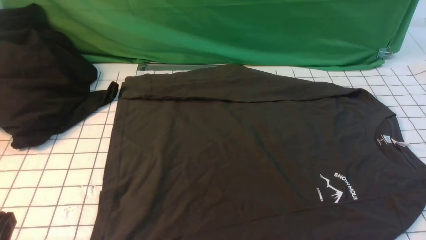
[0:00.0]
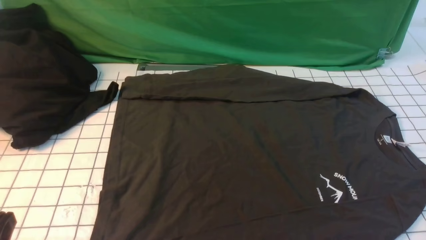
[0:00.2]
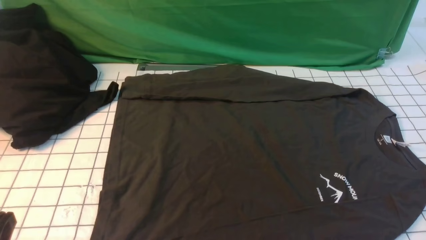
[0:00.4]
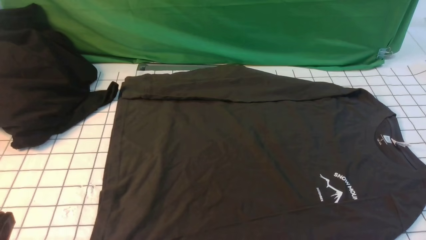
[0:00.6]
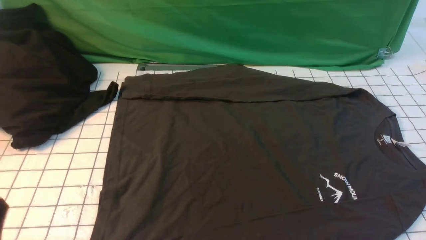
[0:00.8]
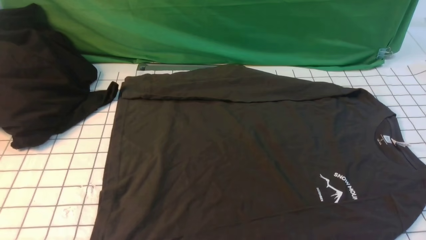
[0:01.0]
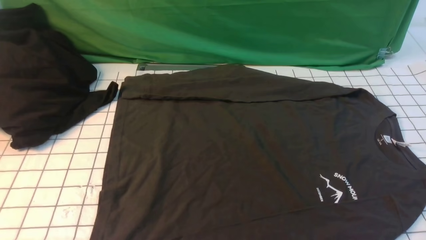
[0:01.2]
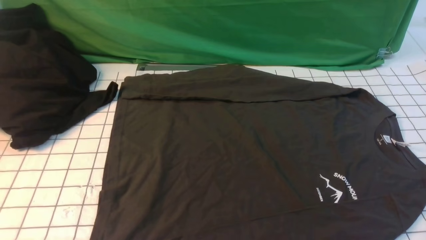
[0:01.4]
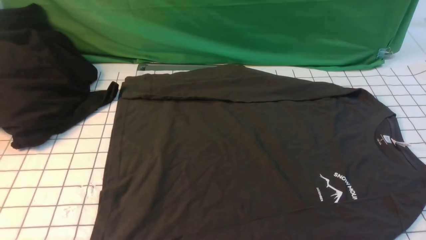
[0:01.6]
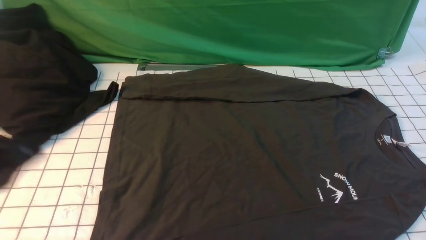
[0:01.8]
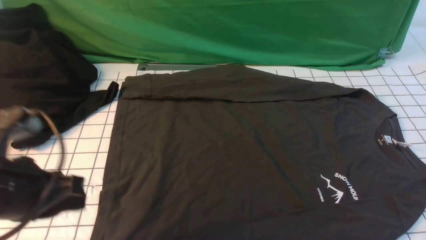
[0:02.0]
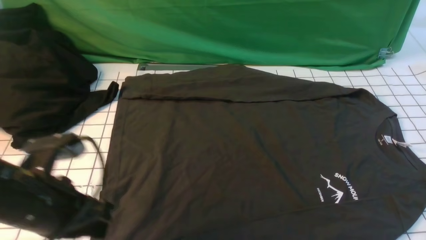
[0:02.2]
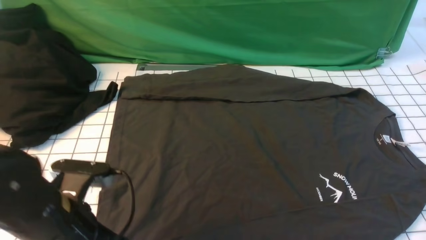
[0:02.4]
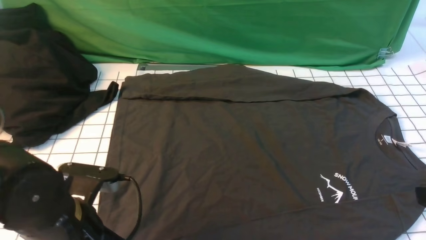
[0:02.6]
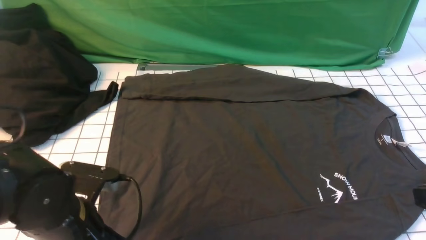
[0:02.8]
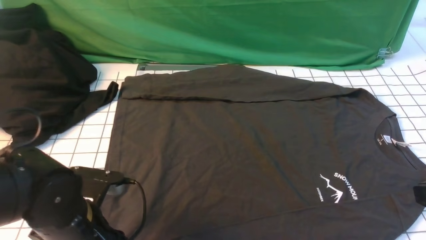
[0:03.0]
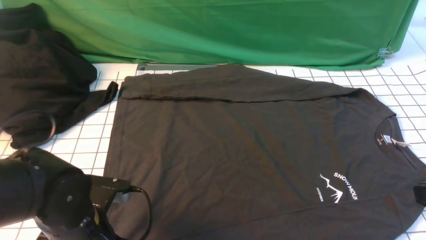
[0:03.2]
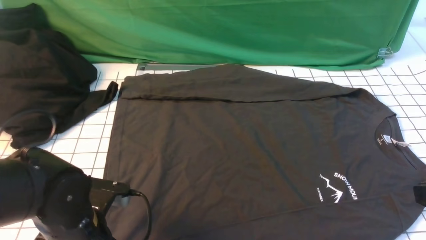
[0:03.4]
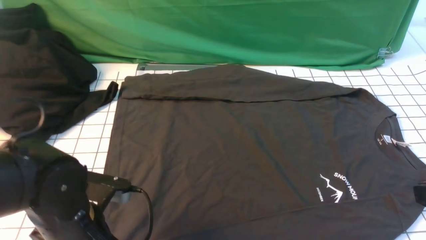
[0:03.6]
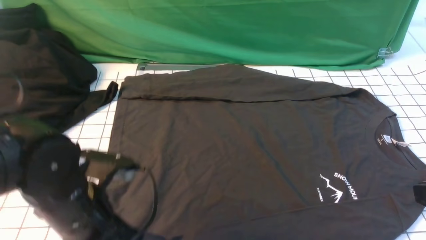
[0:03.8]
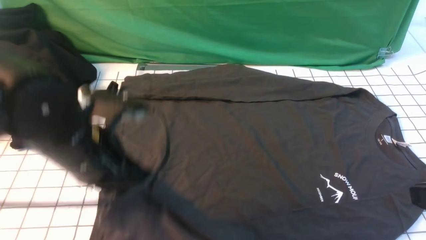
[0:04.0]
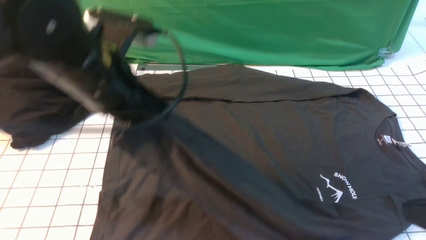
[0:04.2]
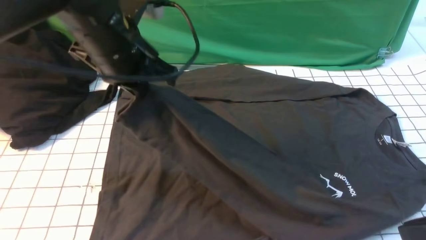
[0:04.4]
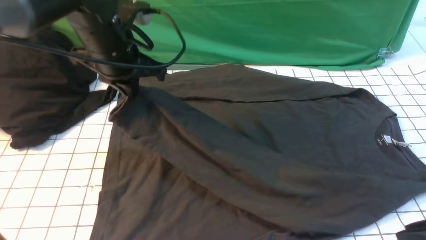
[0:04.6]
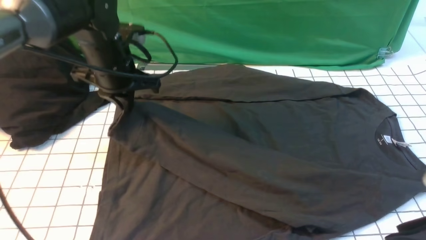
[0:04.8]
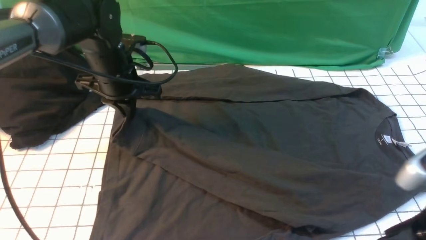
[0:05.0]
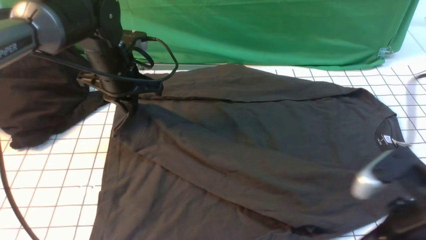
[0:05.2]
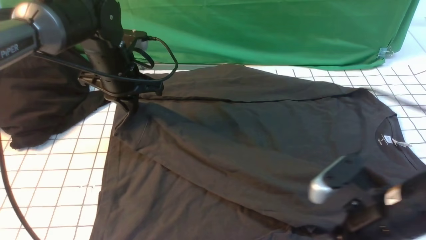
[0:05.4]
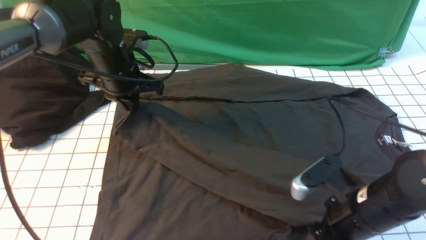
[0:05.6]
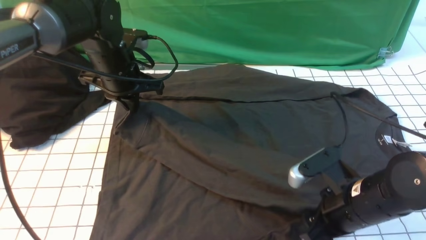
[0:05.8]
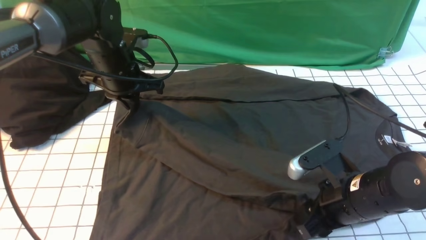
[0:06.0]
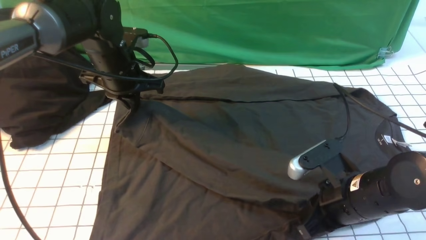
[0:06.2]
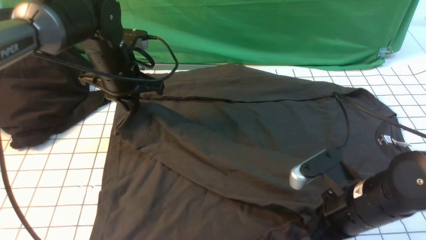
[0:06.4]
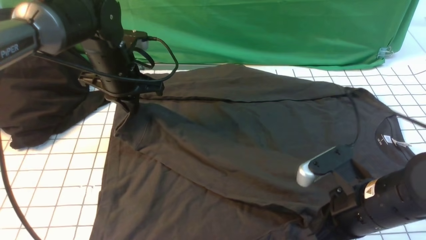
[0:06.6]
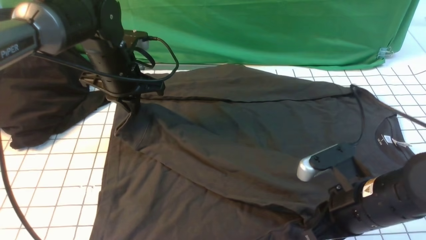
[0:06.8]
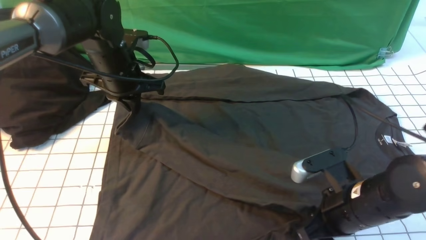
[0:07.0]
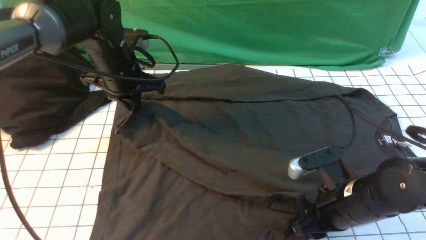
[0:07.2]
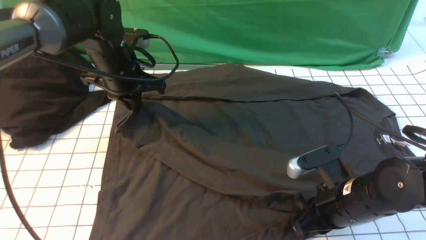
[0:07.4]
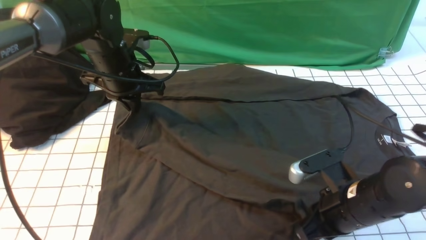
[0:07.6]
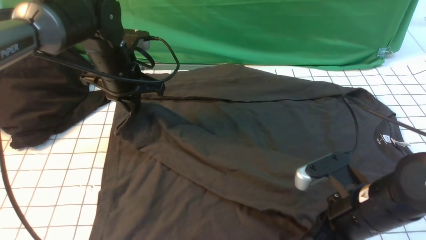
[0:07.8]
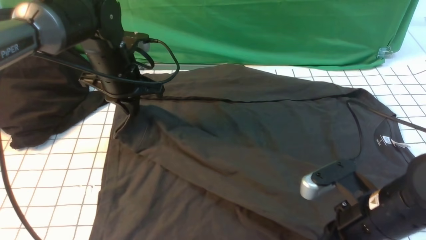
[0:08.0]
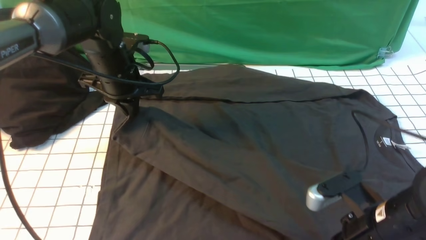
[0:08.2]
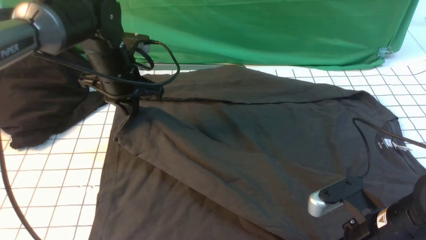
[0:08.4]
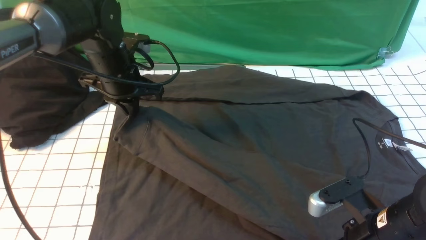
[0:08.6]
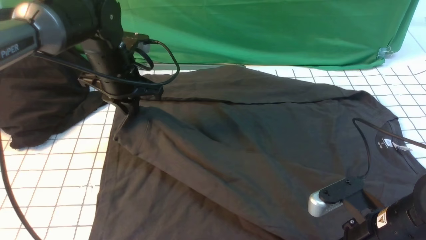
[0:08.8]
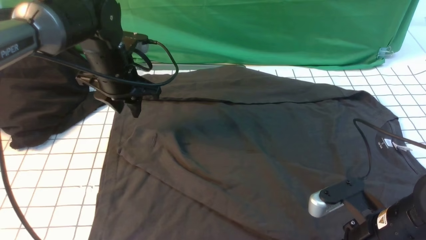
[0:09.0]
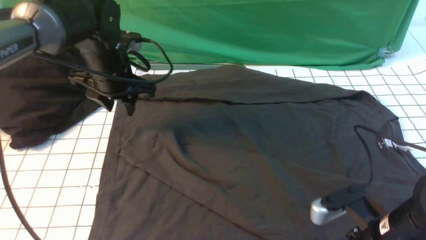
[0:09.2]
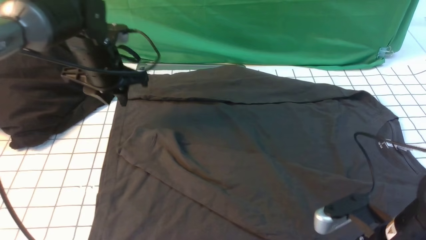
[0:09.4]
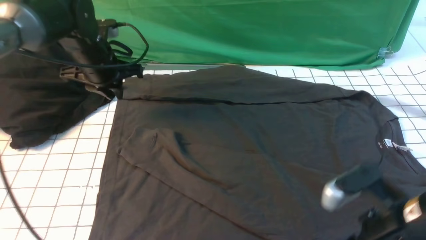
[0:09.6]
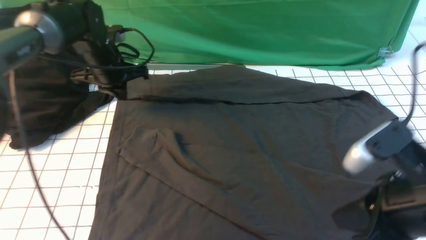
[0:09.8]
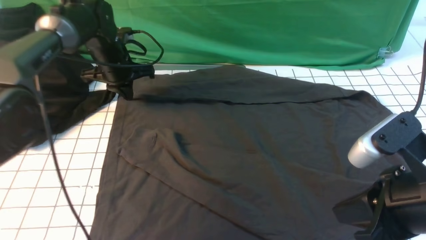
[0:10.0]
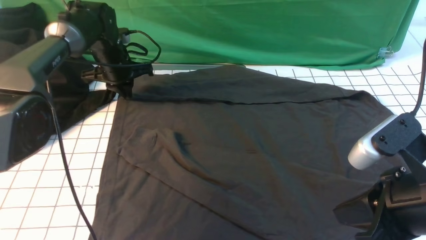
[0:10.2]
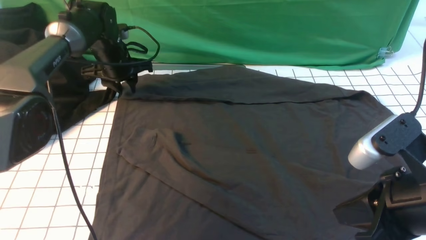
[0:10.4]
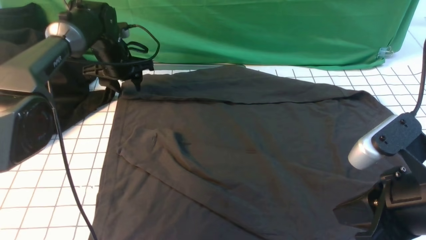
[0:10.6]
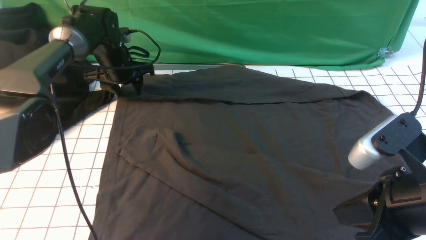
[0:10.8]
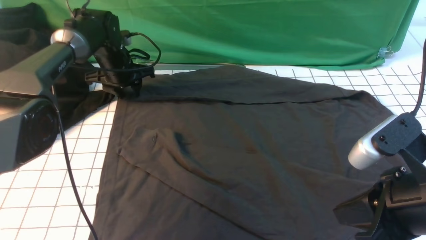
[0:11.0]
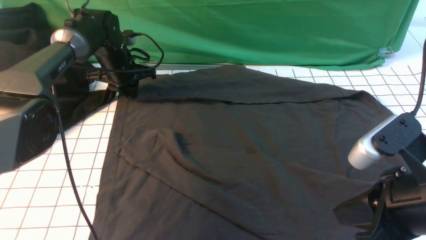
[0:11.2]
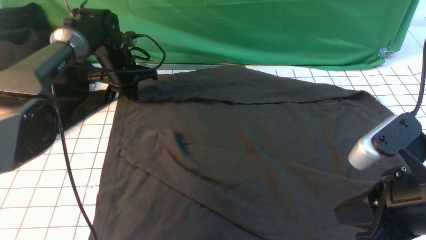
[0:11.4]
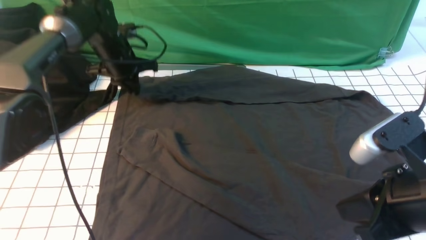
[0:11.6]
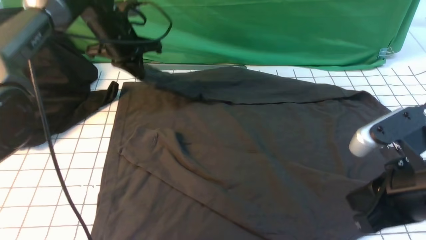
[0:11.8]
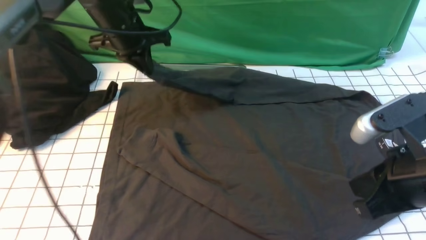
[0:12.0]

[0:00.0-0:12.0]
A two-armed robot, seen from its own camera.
Step, 0.0 to 3.2 s: use the left arm to clamp the cuff closest to it.
Step, 3.4 to 8.8 s: use the left arm to drag and place the cuff at the centered position on the left edge of the fabric.
Step, 9.0 to 11.0 s: use the left arm to clamp the cuff farthest from it.
1.6 to 3.0 s: The right gripper heads upward and forward, covering roughly 10 cm, and closes up. The left gripper travels downward, forward and to the right by roughly 20 cm, and opens up.
3.0 to 4.4 s: The left gripper heads upward and forward, covering about 20 cm, and closes its fingers.
4.4 to 6.0 s: The right gripper heads downward, forward and to the left, covering about 20 cm, and opens its fingers, while the left gripper goes approximately 10 cm downward and forward.
6.0 to 7.6 s: The right gripper closes its fingers.
7.6 to 9.0 s: The left gripper opens its fingers; the right gripper changes place by roughly 5 cm.
9.0 to 10.4 s: The right gripper is displaced upward by some 10 cm, and opens, then closes again, while the left gripper travels forward and downward by about 10 cm, and closes, then reopens.
10.4 to 12.0 s: The left gripper is displaced upward and backward by some 15 cm, and closes its fingers.

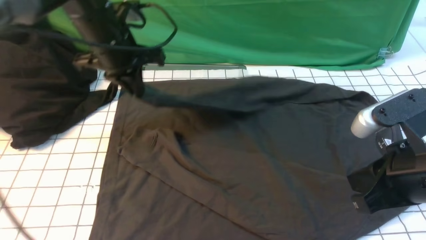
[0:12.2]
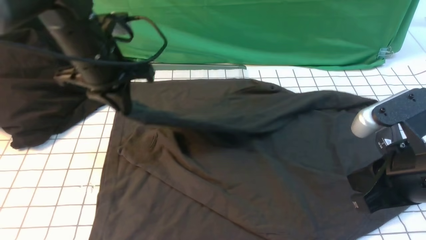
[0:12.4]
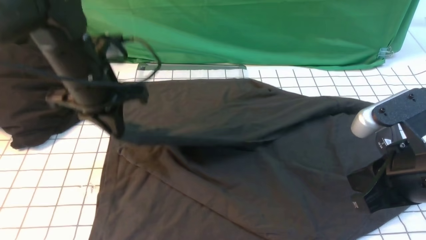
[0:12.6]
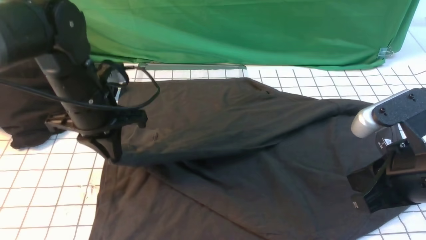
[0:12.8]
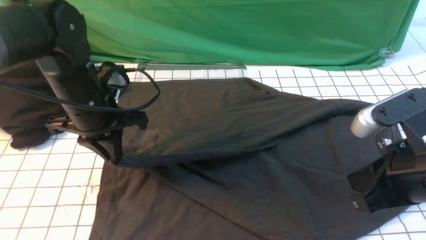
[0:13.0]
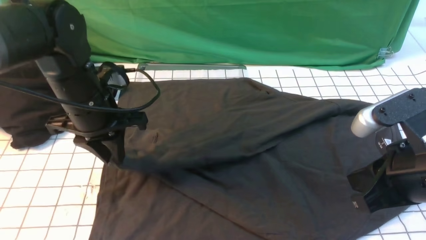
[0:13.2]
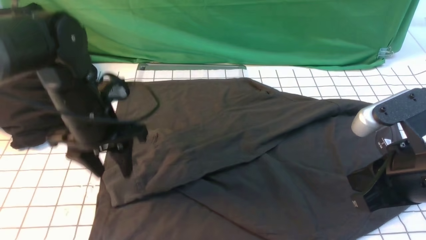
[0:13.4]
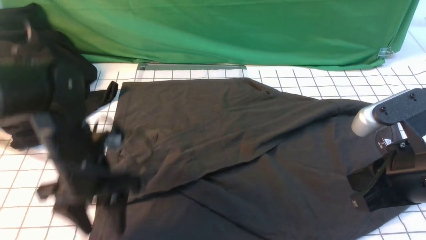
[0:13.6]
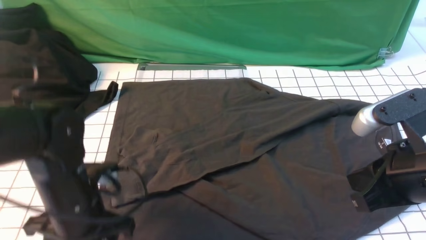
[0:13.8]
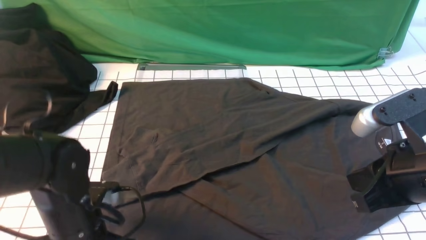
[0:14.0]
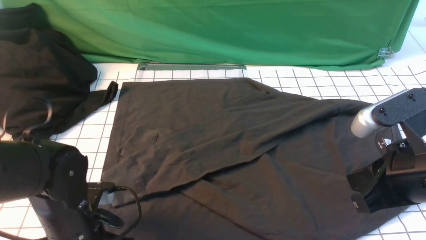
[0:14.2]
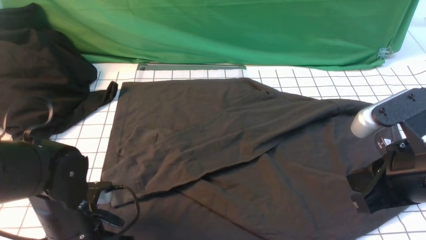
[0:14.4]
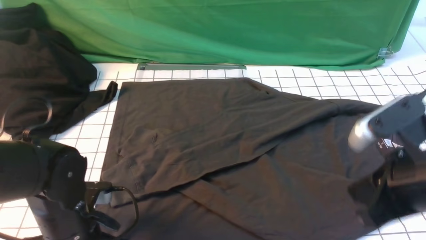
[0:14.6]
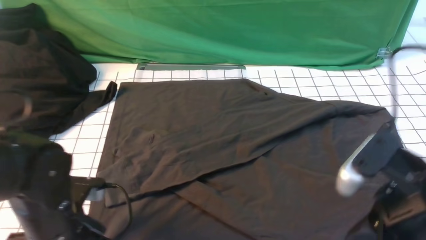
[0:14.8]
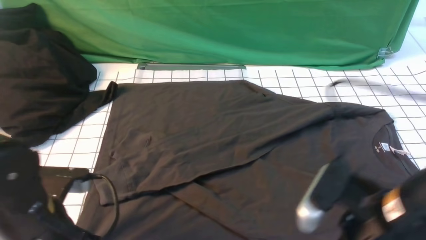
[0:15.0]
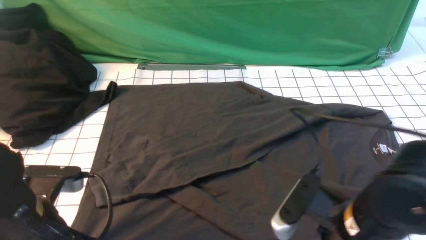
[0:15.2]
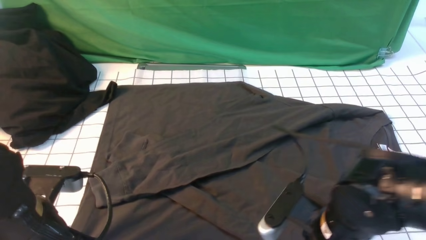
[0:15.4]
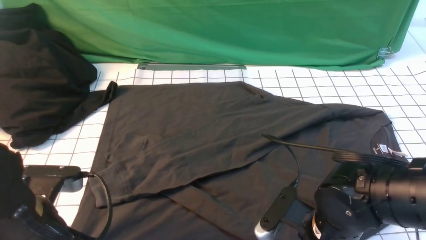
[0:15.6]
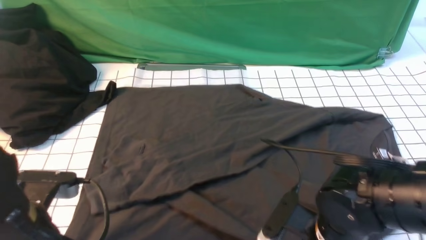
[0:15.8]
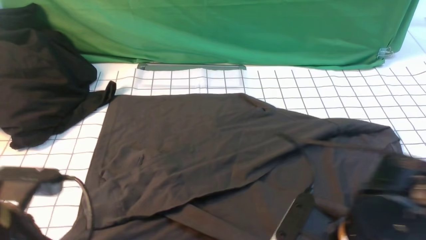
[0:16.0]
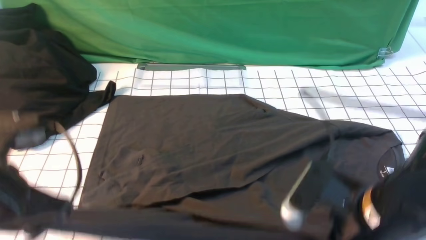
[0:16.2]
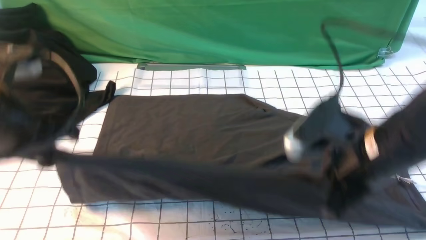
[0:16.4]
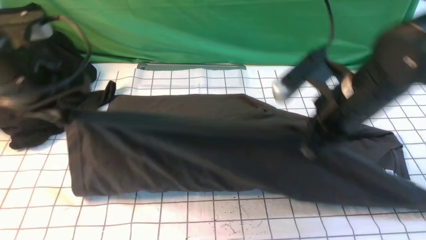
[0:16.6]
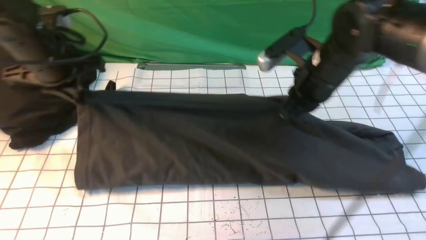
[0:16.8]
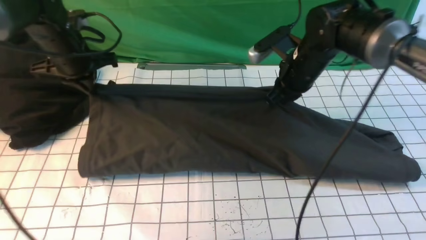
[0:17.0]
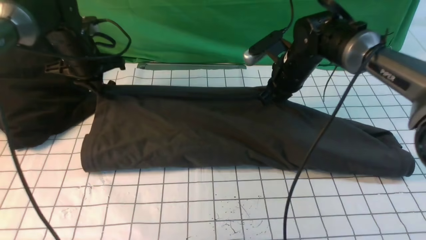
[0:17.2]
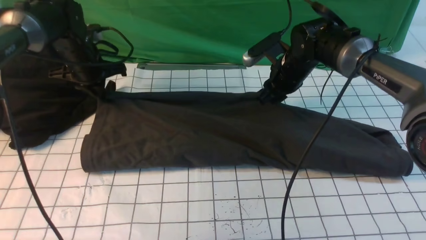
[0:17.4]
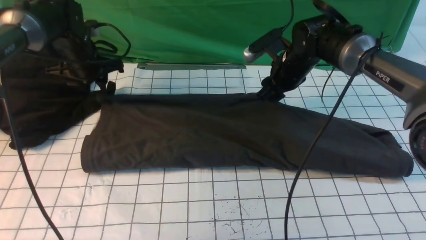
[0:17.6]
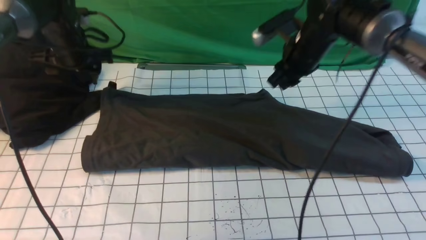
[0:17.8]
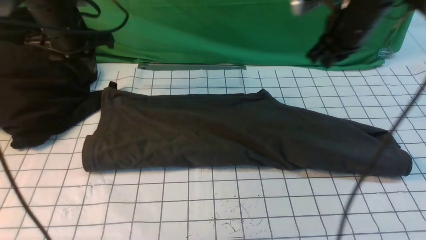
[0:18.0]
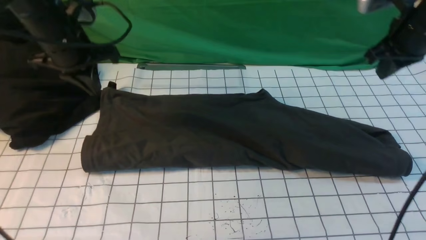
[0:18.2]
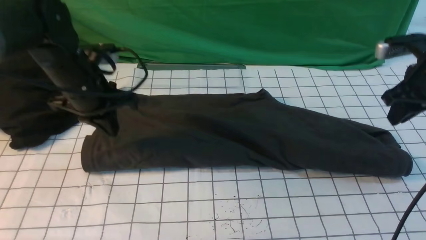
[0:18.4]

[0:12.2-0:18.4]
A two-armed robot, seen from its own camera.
Step, 12.2 to 13.2 s: use the left arm to drag and drop the cuff onto the cuff closest to the left arm.
Step, 13.4 to 15.6 s: use both arms simultaneously to clamp the lower edge of the clothing fabric.
Step, 15.8 to 17.6 s: use both arms to drag the lower edge of the fabric forward and fold it over the upper edge.
12.2 to 13.8 s: The left gripper travels backward and downward by roughly 20 cm, and opens its fingers.
13.8 to 15.4 s: The right gripper shifts some 15 cm downward and to the left, and opens its fingers, while the left gripper shifts approximately 5 cm backward, and closes.
15.4 to 16.8 s: The left gripper travels forward by about 25 cm. The right gripper travels forward and upward by roughly 20 cm, and closes its fingers.
16.8 to 18.4 s: The left gripper heads downward, covering about 5 cm, travels forward and back again, some 10 cm each way, and opens and closes again; the right gripper is displaced to the right by approximately 20 cm.
